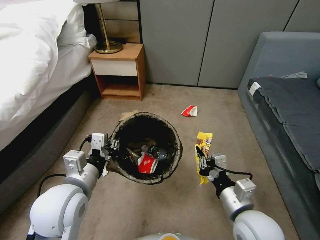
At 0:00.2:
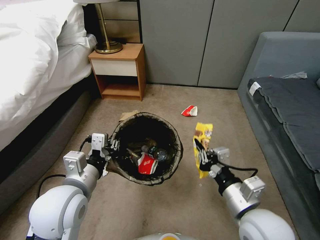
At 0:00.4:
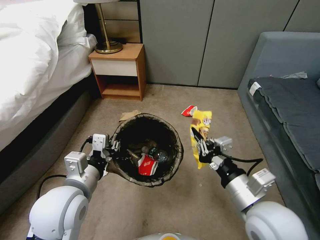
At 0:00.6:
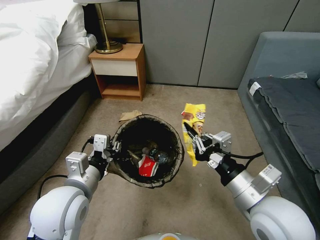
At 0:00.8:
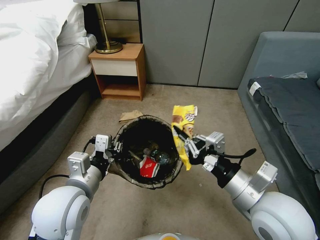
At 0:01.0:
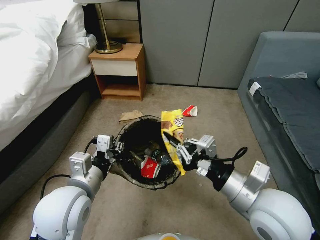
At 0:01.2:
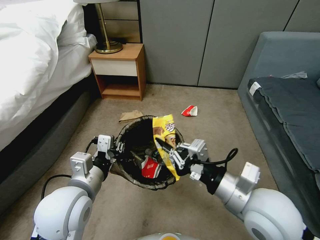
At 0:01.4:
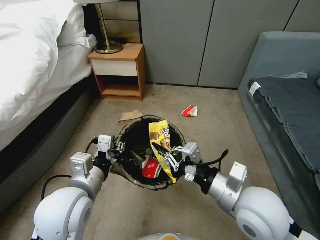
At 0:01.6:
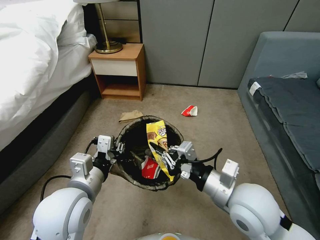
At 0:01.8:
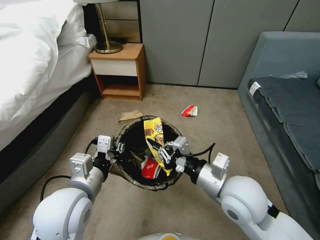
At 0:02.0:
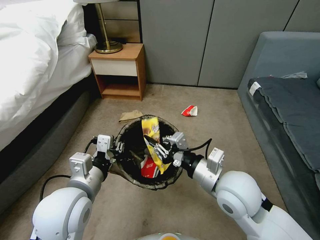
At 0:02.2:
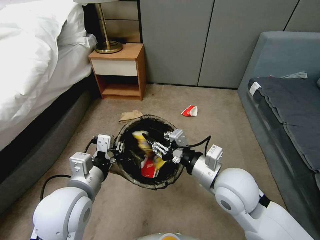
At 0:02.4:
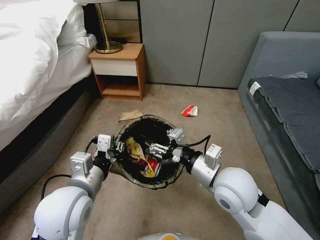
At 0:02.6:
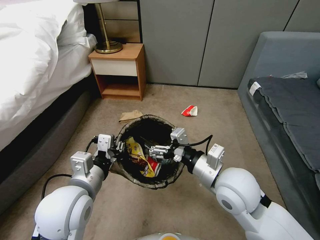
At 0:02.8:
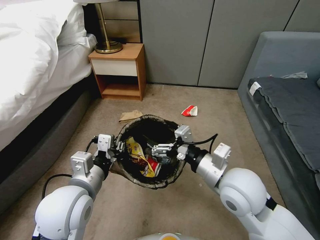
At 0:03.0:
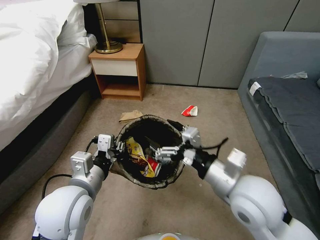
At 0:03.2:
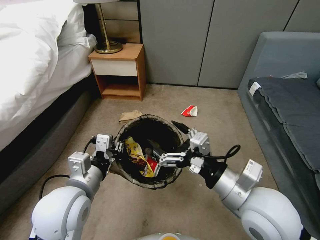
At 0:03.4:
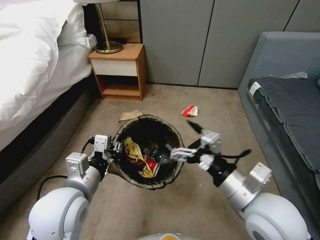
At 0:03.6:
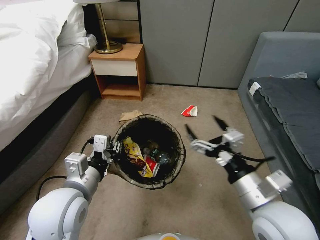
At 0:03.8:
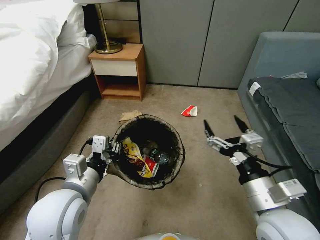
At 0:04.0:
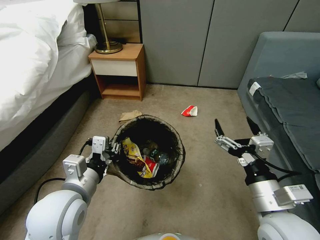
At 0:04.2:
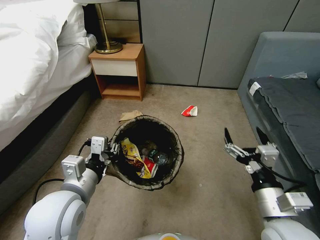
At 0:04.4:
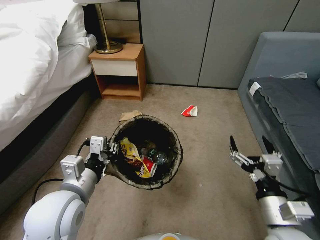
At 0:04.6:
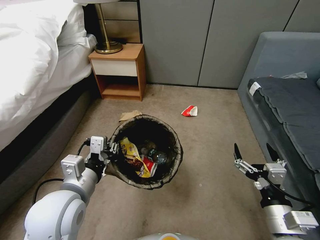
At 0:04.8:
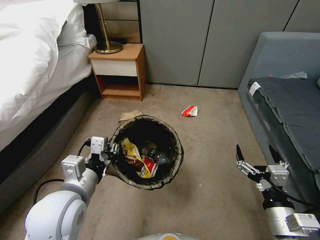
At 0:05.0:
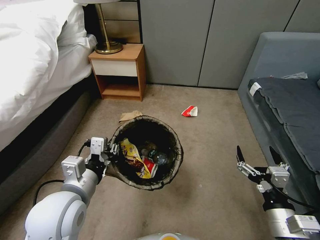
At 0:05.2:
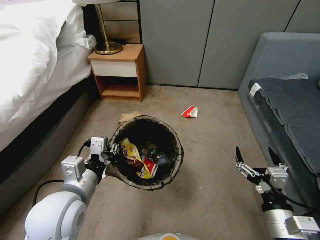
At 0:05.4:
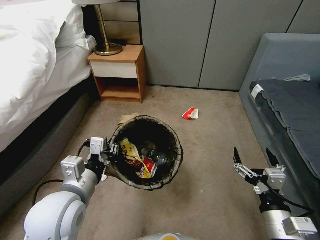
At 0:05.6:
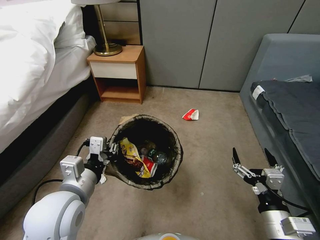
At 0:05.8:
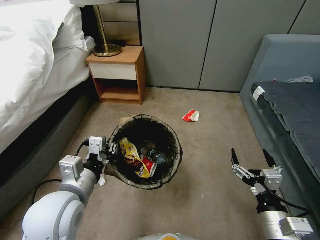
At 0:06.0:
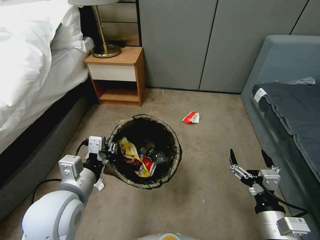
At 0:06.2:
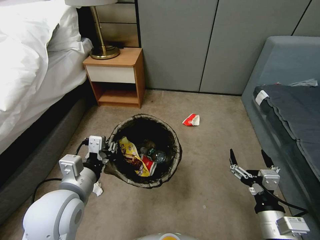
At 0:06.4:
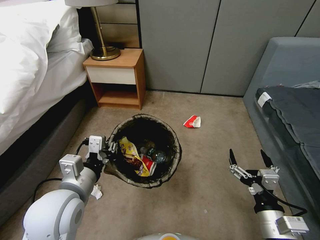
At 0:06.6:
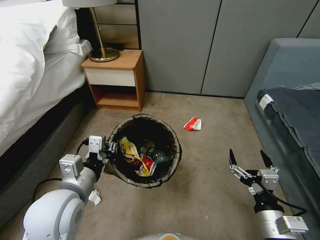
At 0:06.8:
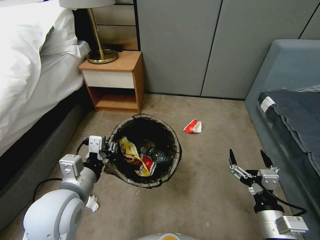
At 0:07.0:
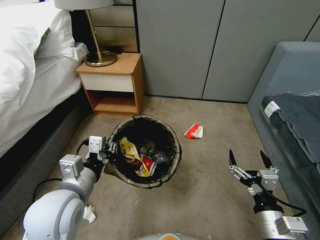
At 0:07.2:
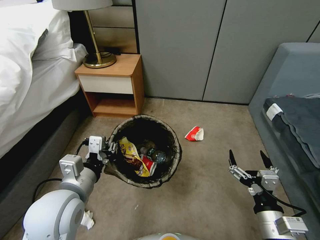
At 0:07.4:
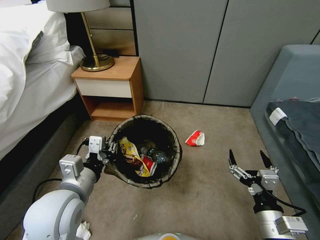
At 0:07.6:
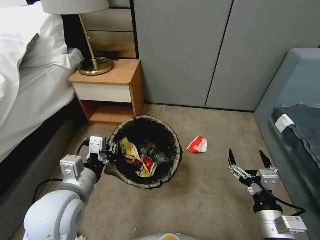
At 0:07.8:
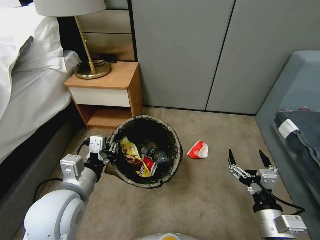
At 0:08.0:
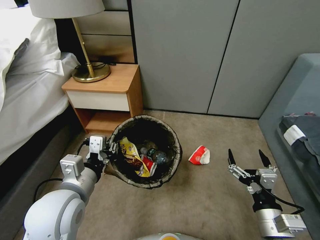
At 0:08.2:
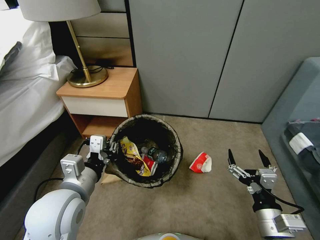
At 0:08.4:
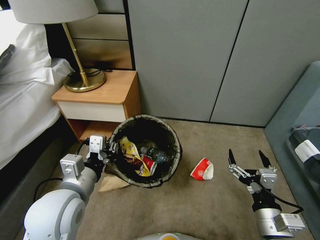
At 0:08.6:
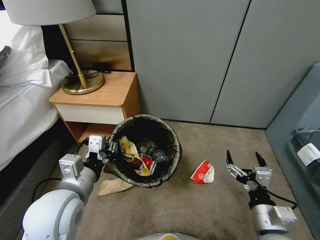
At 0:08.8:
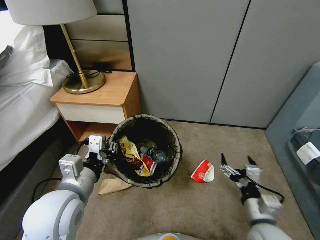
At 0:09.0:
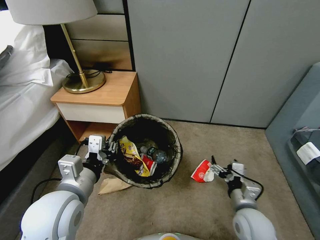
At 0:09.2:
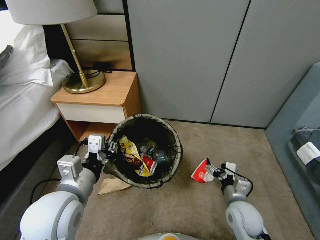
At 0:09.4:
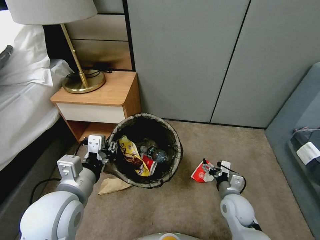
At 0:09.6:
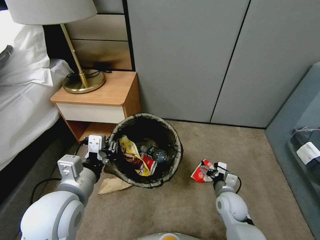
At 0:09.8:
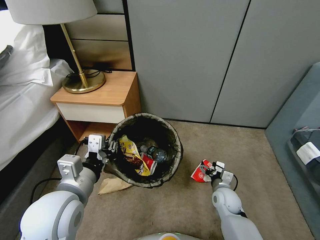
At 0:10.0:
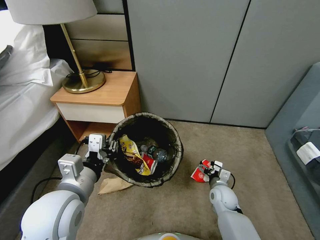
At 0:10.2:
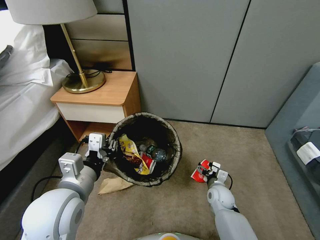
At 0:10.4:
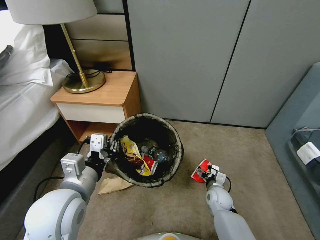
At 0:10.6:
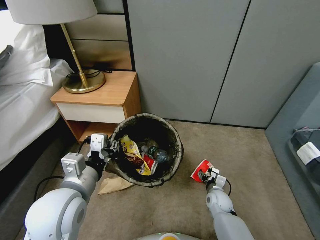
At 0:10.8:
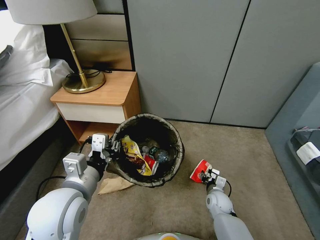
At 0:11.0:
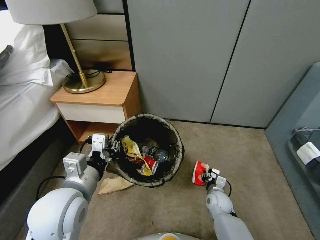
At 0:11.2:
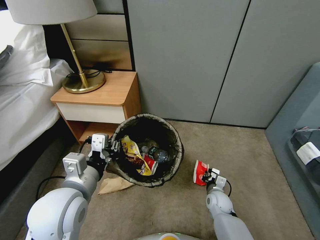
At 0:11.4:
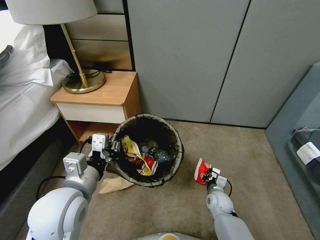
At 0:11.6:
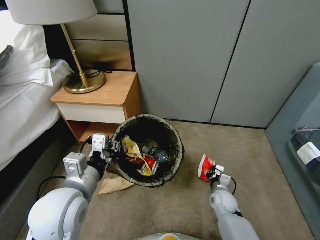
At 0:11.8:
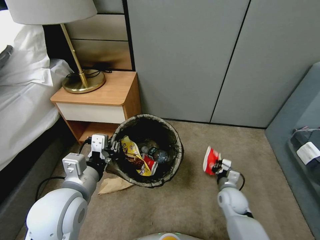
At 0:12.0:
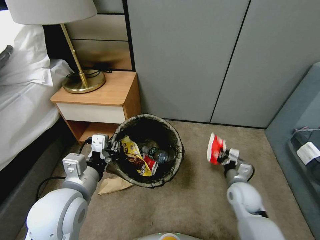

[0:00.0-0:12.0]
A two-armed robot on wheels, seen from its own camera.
Task of the whole recording: Pick up the trash bin, then pick up the garbage from the floor and place it into the trash bin.
0:00.0 to 0:01.6: The right gripper is displaced upward by some 5 cm.
0:01.6 to 0:03.0: The right gripper opens up.
0:03.0 to 0:04.4: The right gripper moves downward, to the right and backward, about 15 cm.
0:04.4 to 0:06.0: The grippers stay close to where they were, moving slightly.
0:07.6 to 0:09.0: The right gripper is displaced forward and downward by roughly 10 cm.
0:09.0 to 0:10.4: The right gripper travels downward and forward by approximately 20 cm.
0:10.4 to 0:12.0: The right gripper goes some 15 cm upward, and closes up.

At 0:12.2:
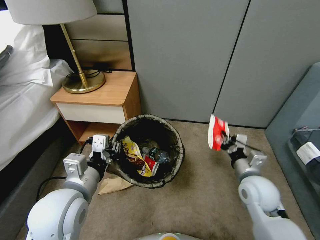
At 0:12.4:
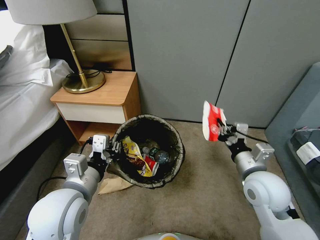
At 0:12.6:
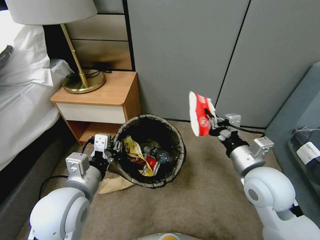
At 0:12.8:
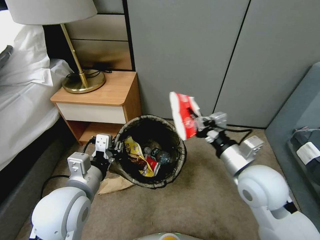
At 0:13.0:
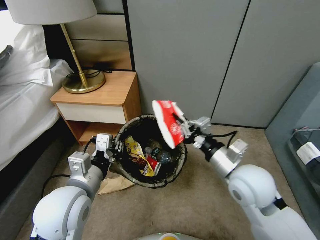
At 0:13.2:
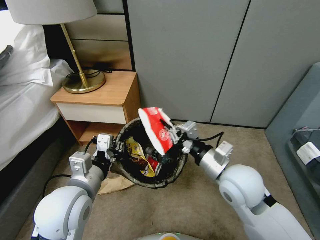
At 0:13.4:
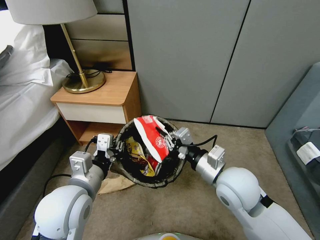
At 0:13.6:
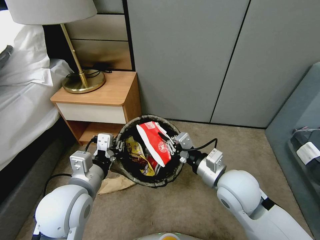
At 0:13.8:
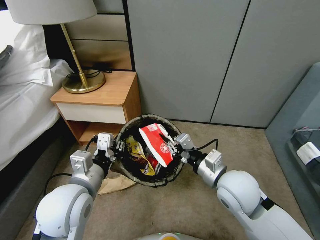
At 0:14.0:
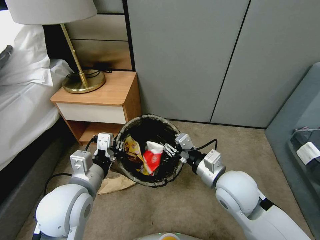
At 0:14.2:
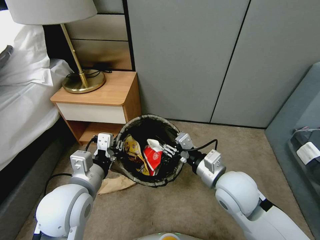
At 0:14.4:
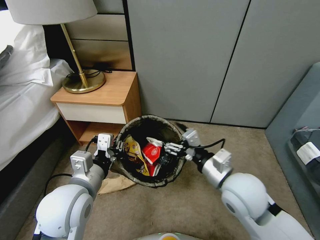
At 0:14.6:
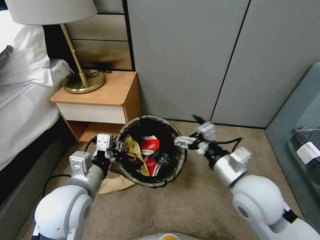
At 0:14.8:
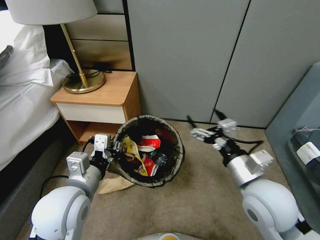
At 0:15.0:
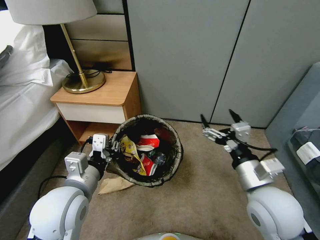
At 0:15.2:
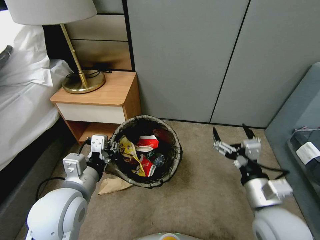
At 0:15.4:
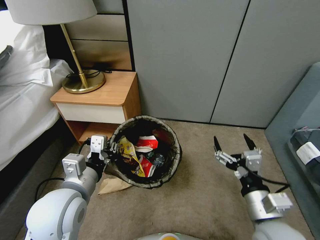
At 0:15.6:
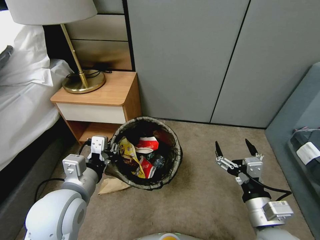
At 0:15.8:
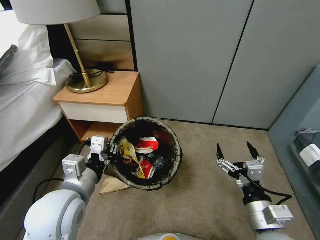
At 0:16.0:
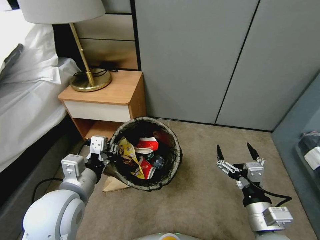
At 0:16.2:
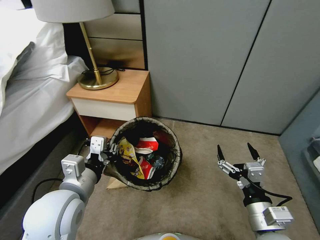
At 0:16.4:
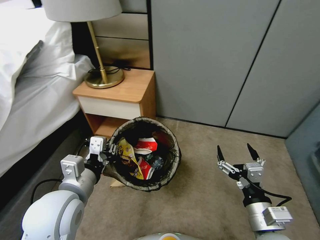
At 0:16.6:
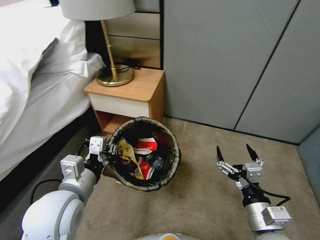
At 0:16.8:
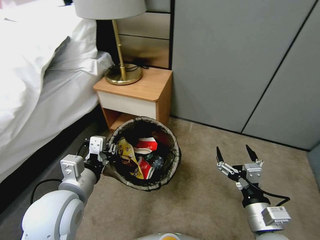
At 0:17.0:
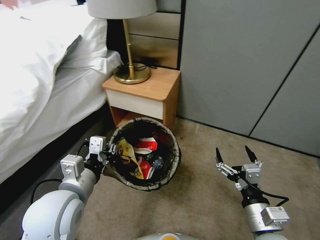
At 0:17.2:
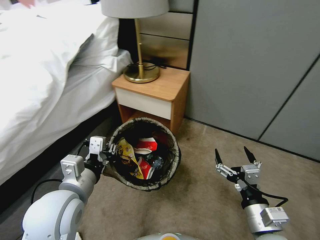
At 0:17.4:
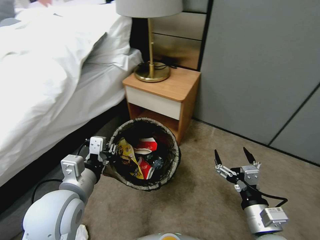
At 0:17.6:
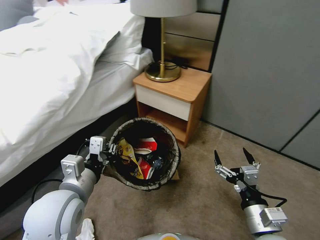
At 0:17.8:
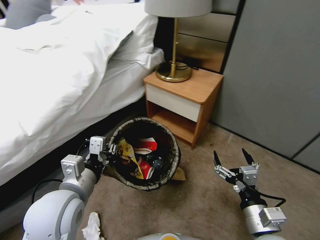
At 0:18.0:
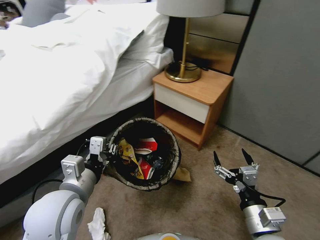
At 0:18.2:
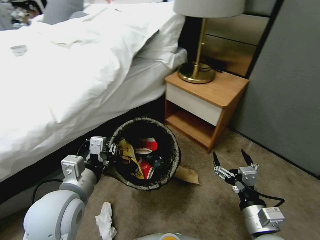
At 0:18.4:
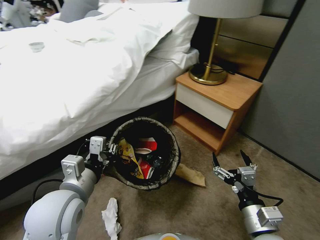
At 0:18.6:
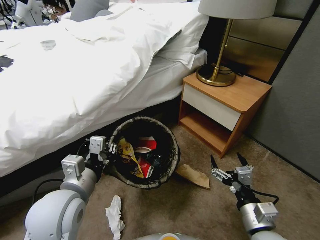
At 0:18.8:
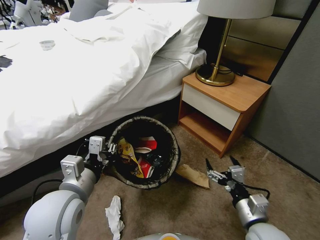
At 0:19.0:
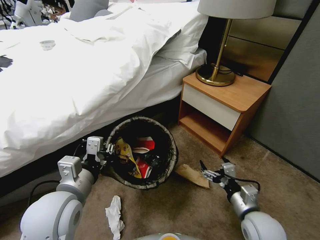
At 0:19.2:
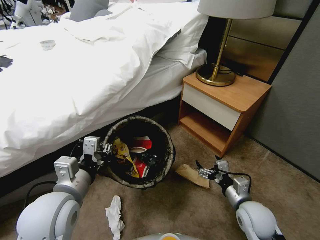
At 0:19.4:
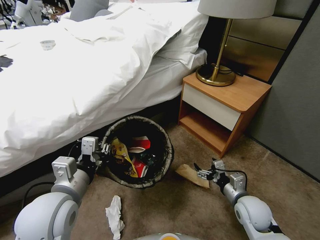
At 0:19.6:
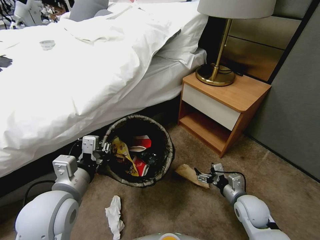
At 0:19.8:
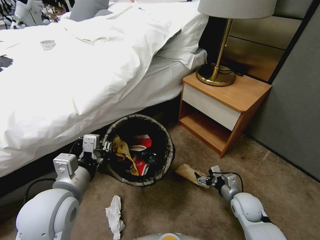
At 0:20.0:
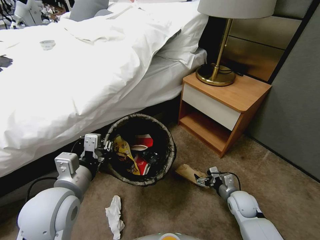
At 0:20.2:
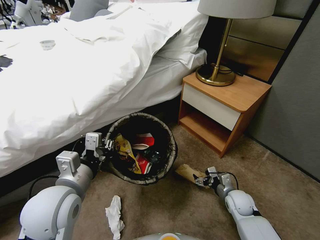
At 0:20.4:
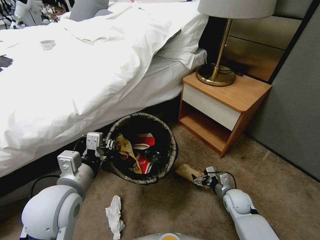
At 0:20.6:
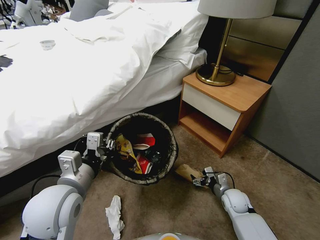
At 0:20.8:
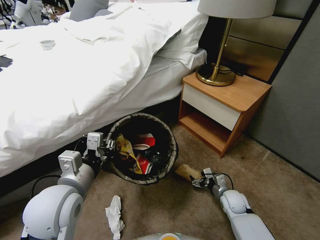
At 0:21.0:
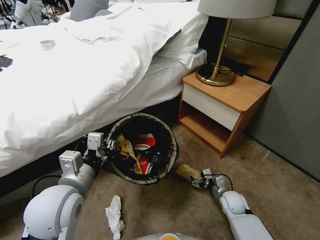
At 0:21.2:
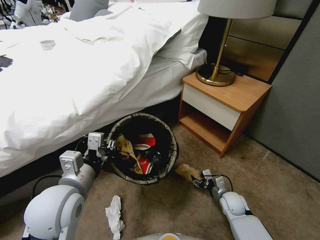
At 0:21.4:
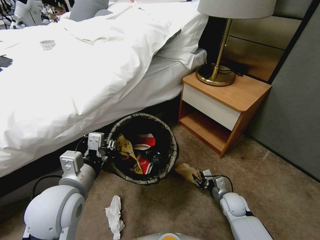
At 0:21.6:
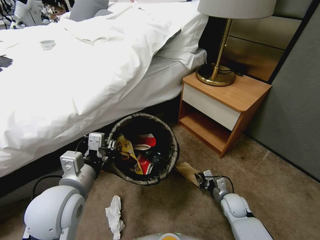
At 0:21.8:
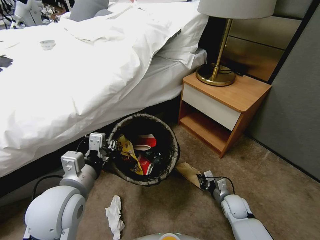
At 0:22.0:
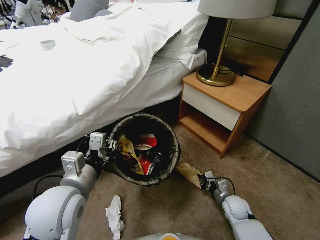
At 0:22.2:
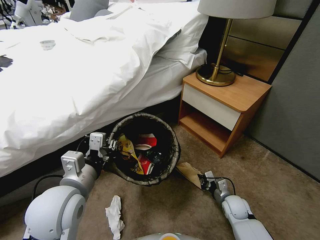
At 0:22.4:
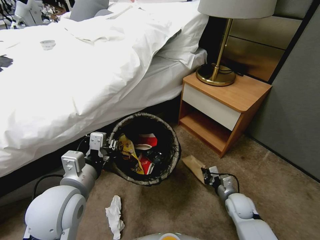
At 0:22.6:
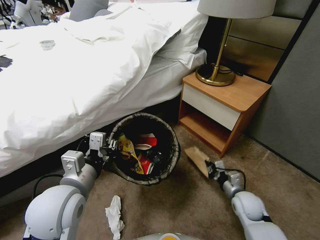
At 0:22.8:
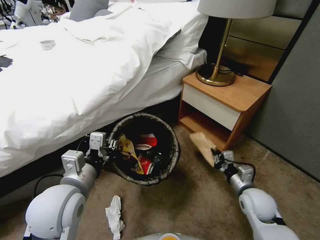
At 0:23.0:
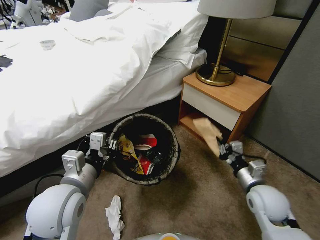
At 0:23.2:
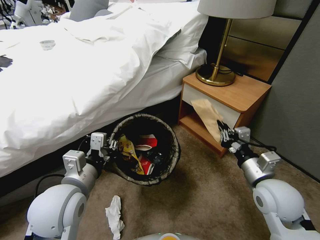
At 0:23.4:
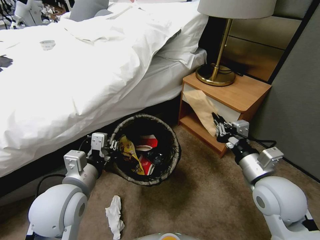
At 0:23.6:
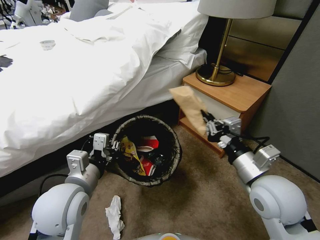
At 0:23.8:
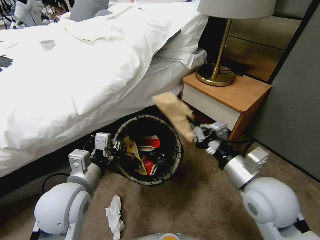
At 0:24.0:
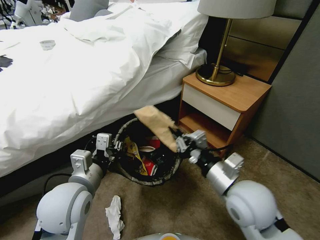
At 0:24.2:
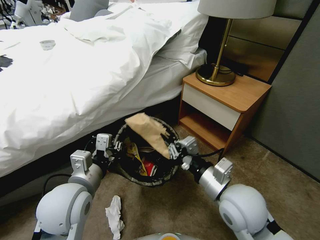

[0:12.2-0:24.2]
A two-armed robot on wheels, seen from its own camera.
Task of the whole recording: Pick up the trash bin, then pick up the garbage from the floor and place it into the trash bin.
0:12.2 to 0:13.8: The right gripper travels to the left and upward by some 10 cm.
0:13.8 to 0:15.2: The right gripper shifts approximately 10 cm backward and to the right, and opens.
0:15.2 to 0:16.6: The right gripper moves downward, roughly 5 cm.
0:18.2 to 0:19.8: The right gripper heads downward and forward, covering some 20 cm.
0:19.8 to 0:21.2: The right gripper heads downward, covering approximately 5 cm.
0:21.2 to 0:22.6: The right gripper travels upward by approximately 5 cm, and closes up.
0:22.6 to 0:24.2: The right gripper moves upward and to the left, approximately 25 cm.
